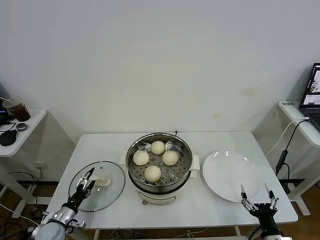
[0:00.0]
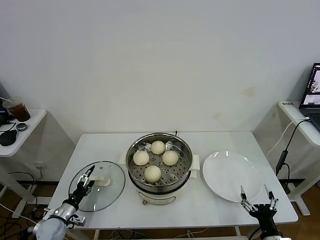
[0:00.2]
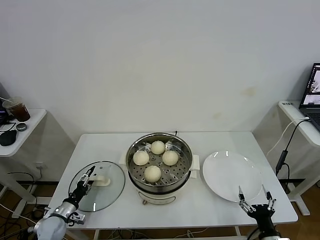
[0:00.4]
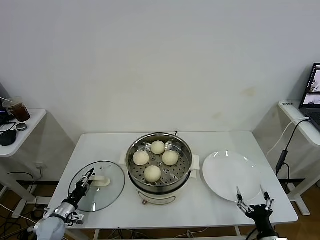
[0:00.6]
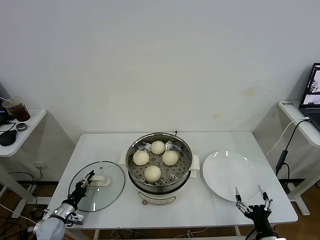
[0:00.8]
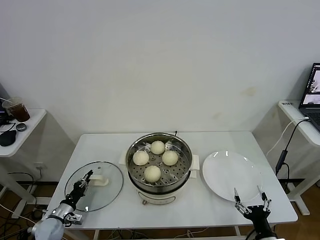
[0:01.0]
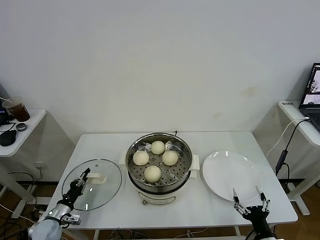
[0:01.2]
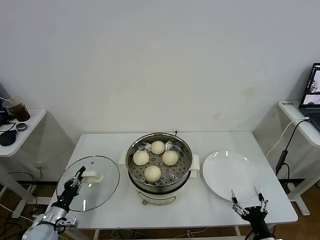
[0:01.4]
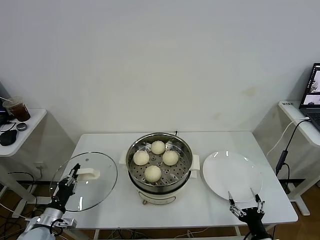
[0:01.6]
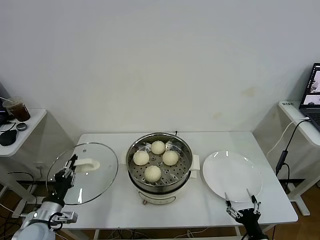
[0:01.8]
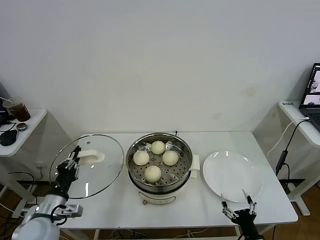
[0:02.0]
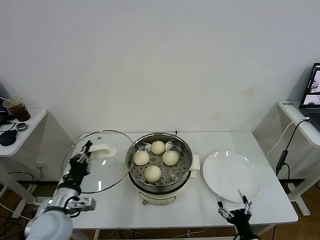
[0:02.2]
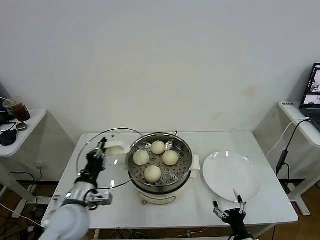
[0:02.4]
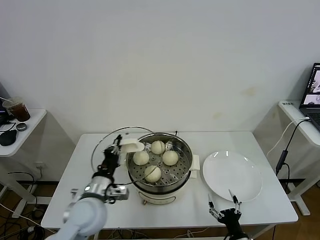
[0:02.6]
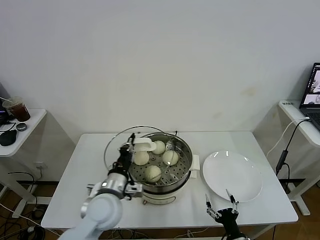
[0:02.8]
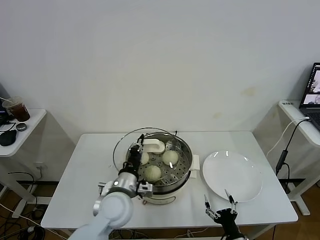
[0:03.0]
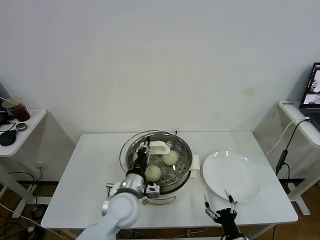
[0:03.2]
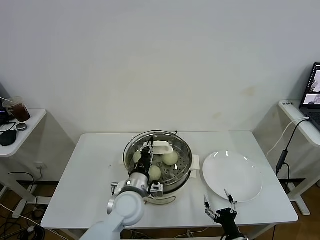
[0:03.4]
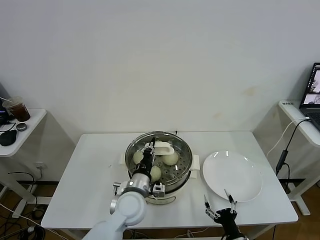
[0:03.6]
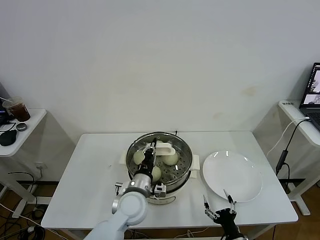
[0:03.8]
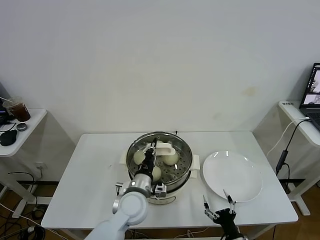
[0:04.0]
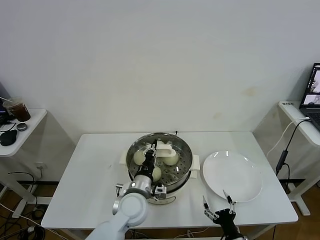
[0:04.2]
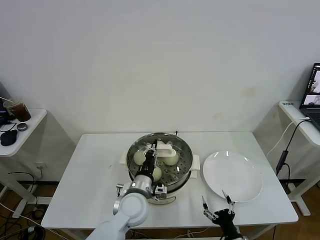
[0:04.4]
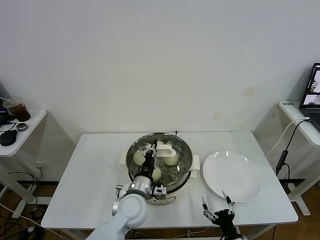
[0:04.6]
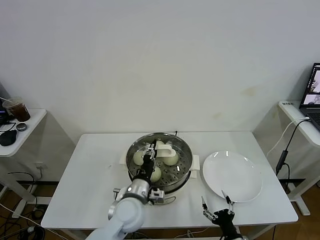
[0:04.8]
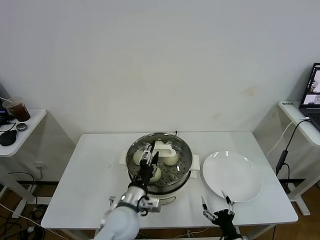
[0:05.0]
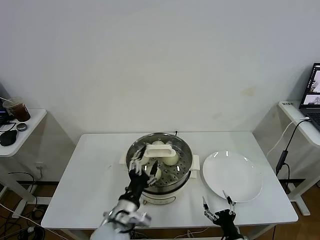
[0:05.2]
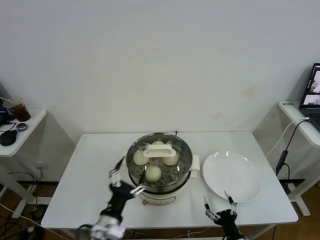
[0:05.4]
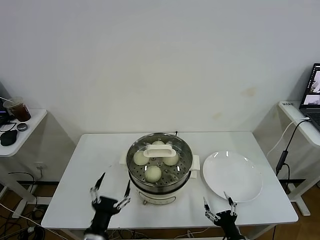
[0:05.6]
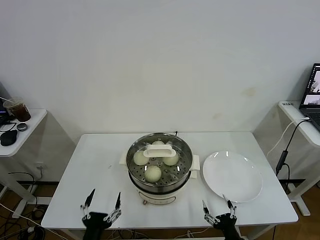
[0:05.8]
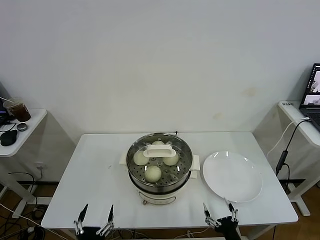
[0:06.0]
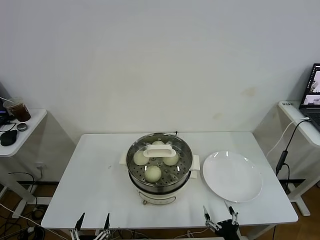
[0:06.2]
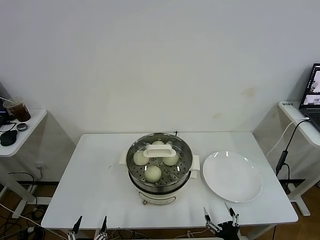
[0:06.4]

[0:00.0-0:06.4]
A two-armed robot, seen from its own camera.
Task of the whole recording: take steamed baozi put them in steamer.
Step, 0:01.2 to 0:05.2: Place the pot lid on the steamer with left gripper.
0:00.0 to 0:01.6: The left gripper travels upward by approximately 5 cm, and closes up.
0:01.6 to 0:03.2: The left gripper goes about 30 cm to the right and upward. Meanwhile the right gripper moves to the left, about 5 cm.
0:03.2 to 0:04.8: The grippers move only a little.
0:04.8 to 0:06.4: The left gripper is displaced backward and to the left by some 30 cm, and opens, while the right gripper moves approximately 5 cm.
